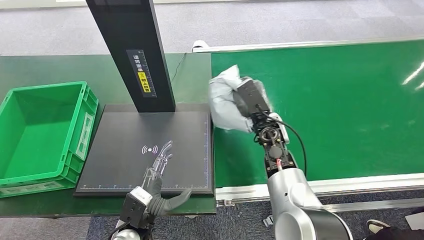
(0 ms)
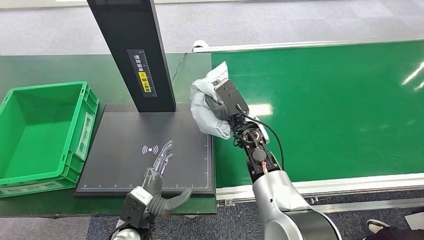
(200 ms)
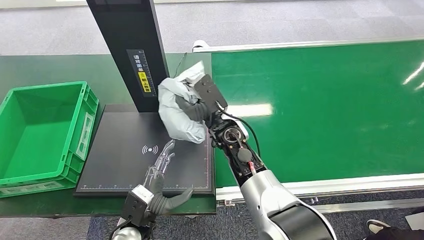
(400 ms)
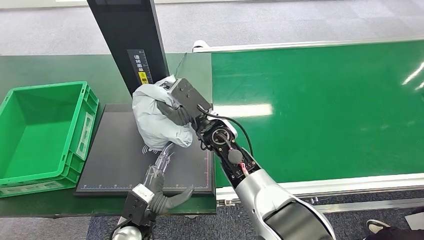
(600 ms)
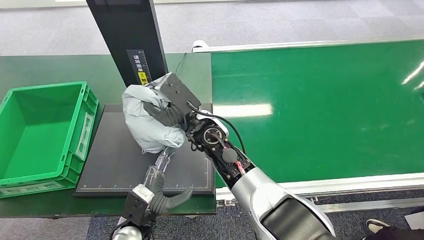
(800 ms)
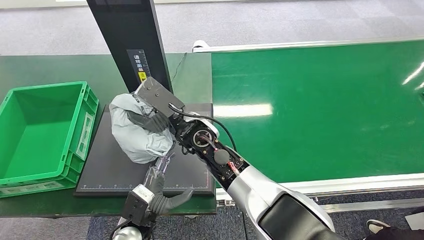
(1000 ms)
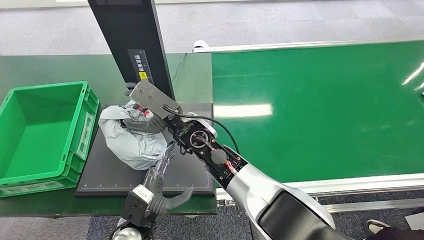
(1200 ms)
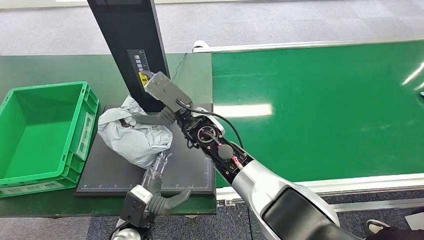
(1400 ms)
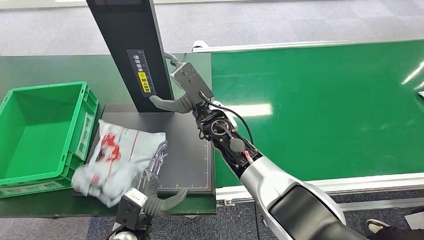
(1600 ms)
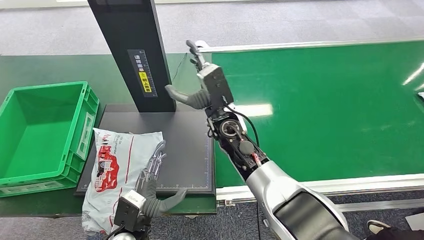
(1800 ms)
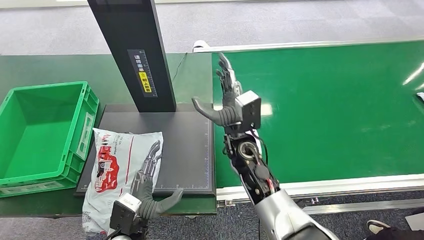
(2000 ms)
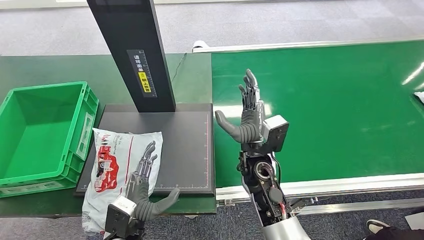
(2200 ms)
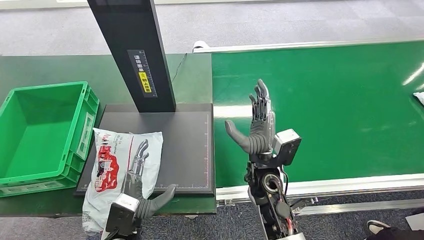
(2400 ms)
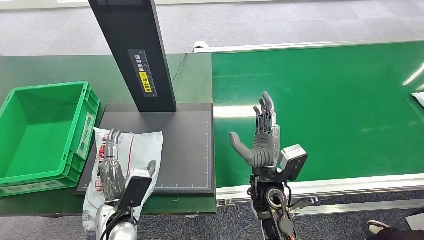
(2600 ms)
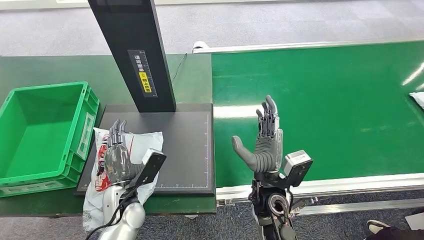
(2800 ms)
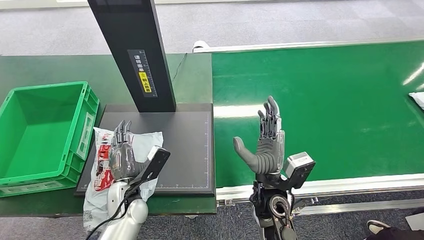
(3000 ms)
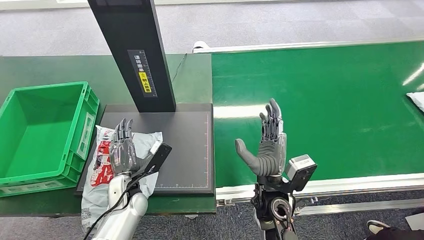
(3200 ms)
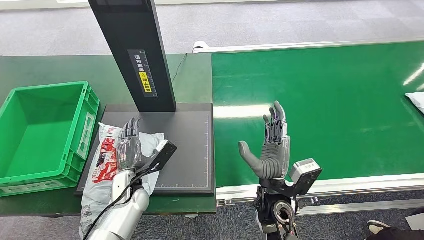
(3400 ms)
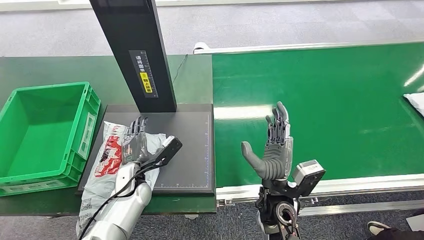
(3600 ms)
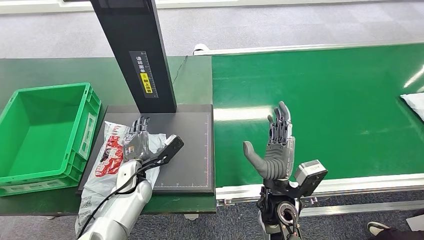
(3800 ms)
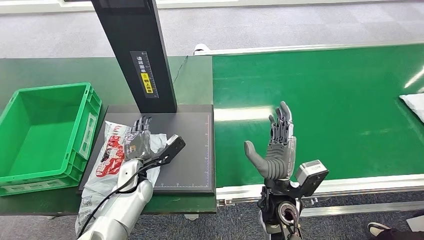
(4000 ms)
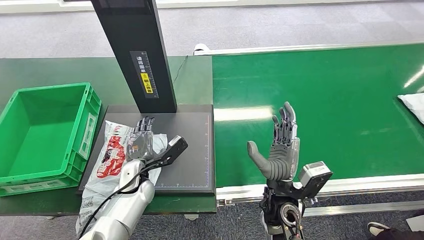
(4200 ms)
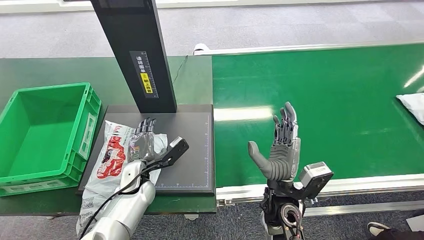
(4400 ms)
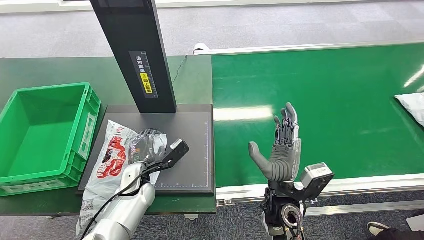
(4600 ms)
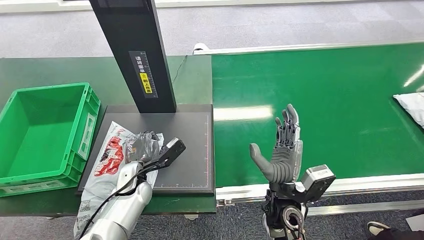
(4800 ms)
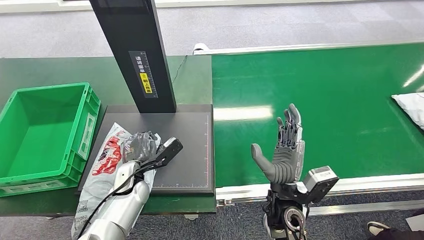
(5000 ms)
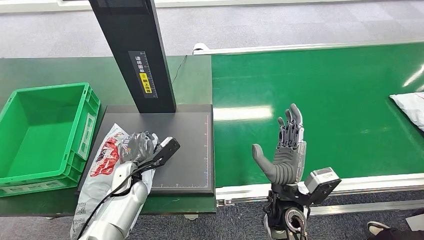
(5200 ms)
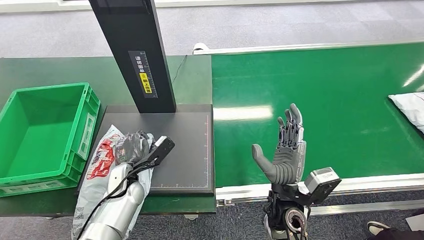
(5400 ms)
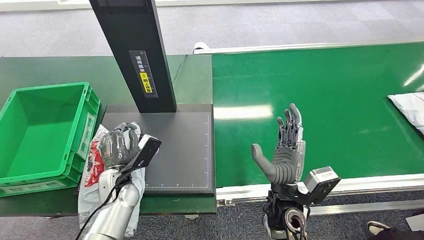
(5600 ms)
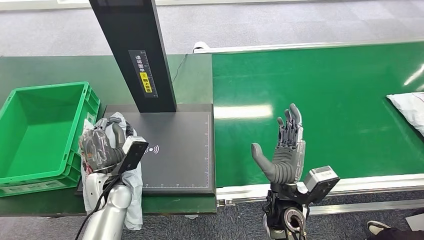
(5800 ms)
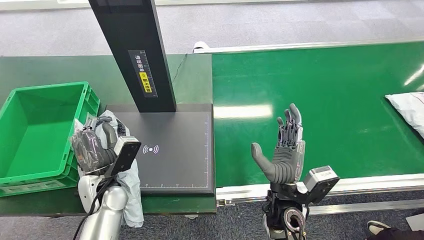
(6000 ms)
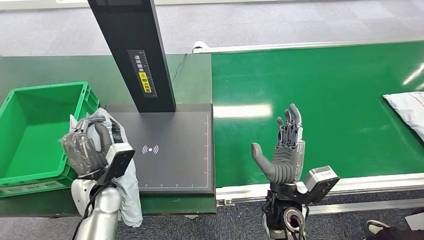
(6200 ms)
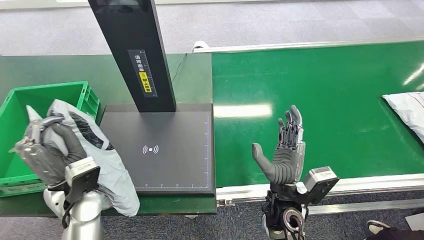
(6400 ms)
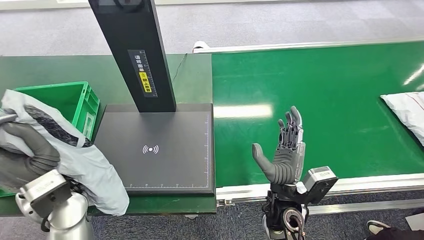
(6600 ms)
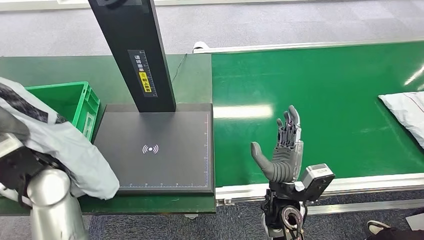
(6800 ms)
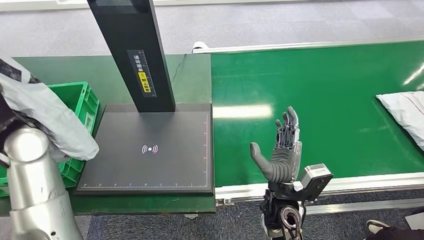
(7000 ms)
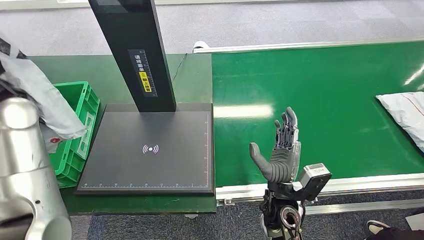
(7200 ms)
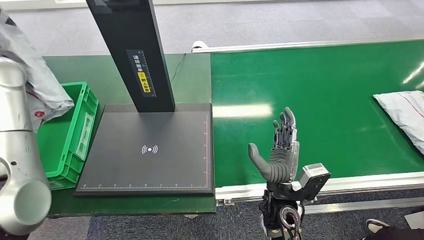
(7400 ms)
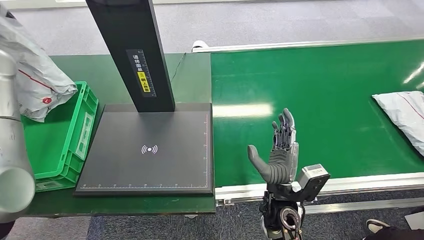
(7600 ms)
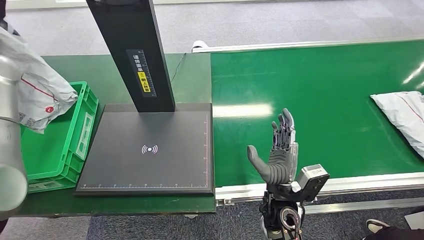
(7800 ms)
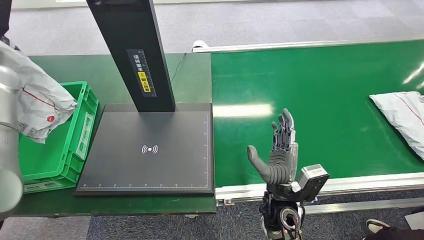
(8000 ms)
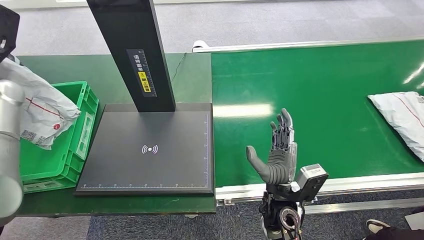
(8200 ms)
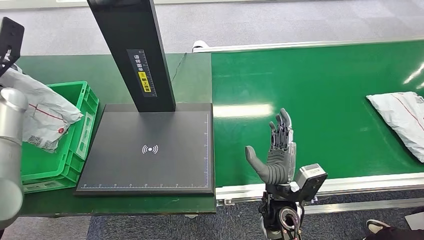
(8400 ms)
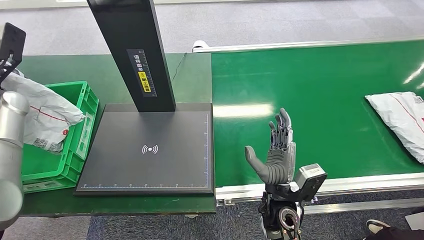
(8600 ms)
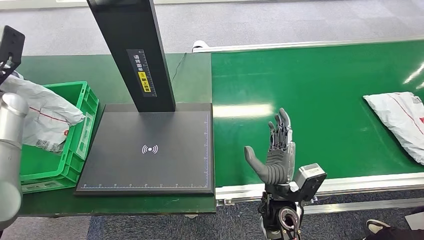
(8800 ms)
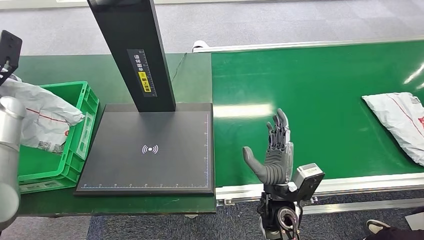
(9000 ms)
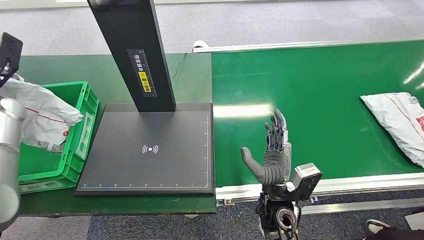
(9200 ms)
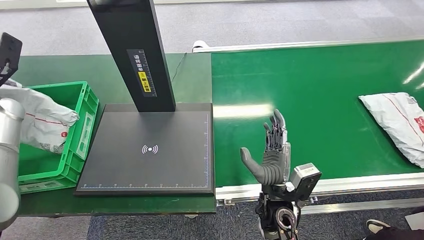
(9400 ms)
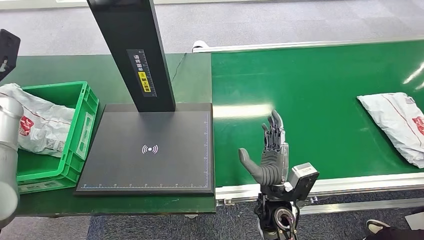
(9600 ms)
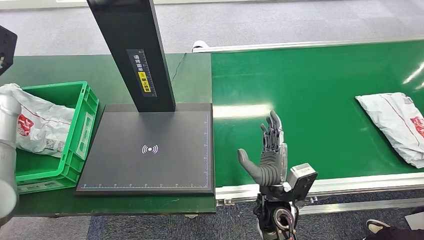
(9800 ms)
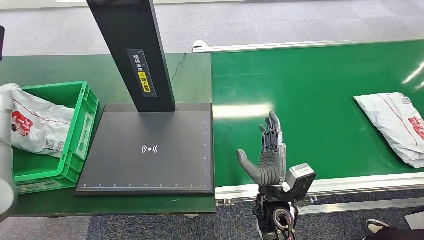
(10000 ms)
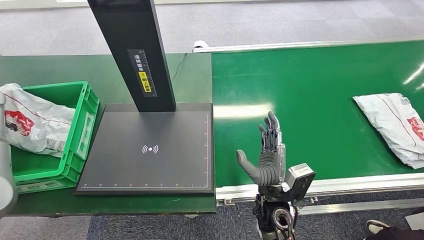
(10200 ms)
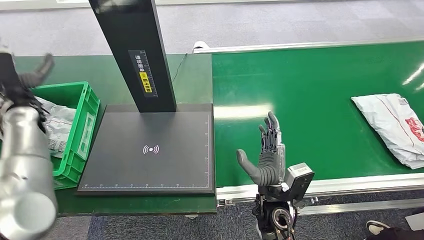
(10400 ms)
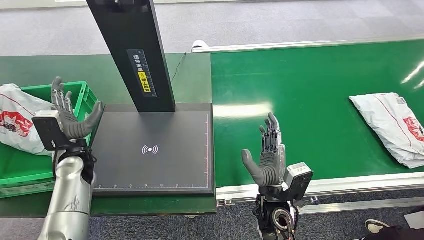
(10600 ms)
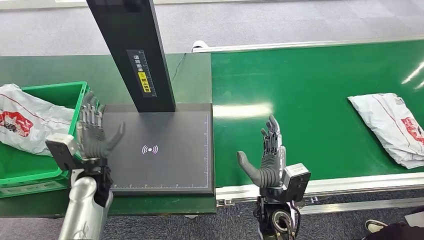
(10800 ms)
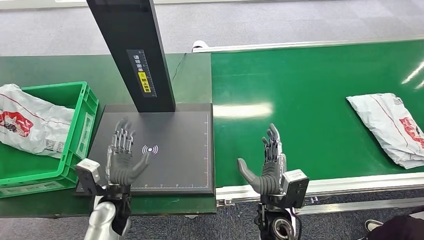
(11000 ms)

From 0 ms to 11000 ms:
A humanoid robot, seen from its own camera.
Step, from 0 ms to 2600 ms: Place the package onto the inbound machine.
Step, from 2800 ms to 6800 ms: Pick up the package from the inbound machine.
Step, from 7000 ms to 11000 ms: Place the package into the parcel locker.
From 0 ms to 1600 ms: The right hand is displaced to the left and upward by approximately 10 cm.
From 4800 ms to 6200 ms: The left hand goes some 5 cm upward.
From 7800 ms to 9400 ms: The left hand is displaced downward and to the left by some 10 cm.
From 9400 ms to 11000 ms: The left hand travels to the right, downward and backward by about 40 cm.

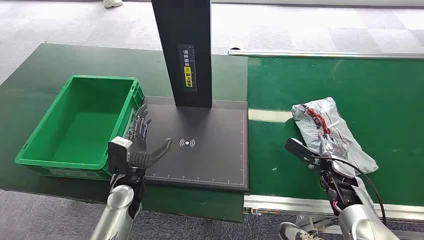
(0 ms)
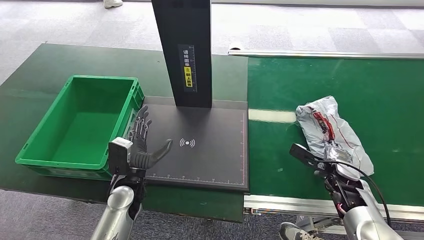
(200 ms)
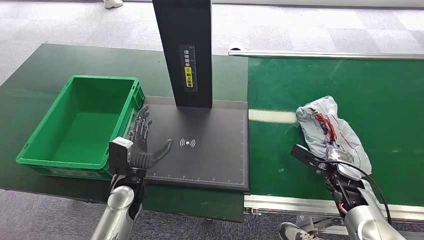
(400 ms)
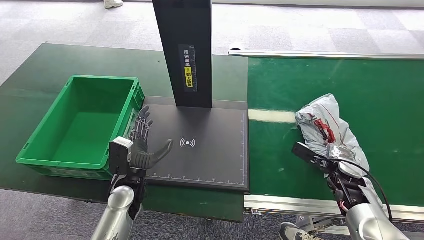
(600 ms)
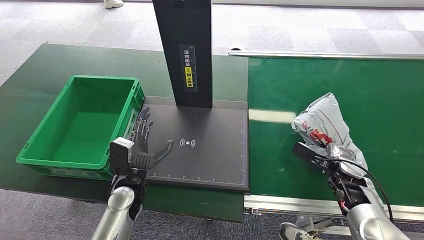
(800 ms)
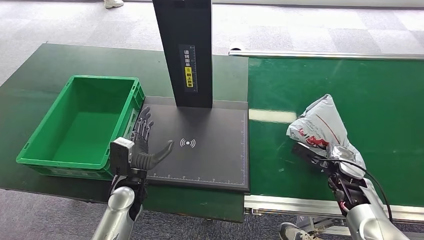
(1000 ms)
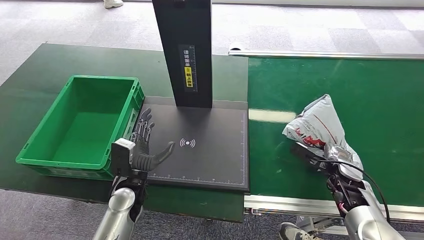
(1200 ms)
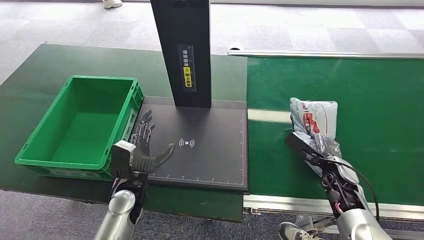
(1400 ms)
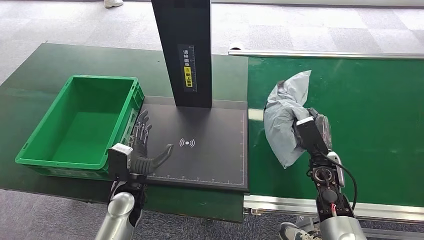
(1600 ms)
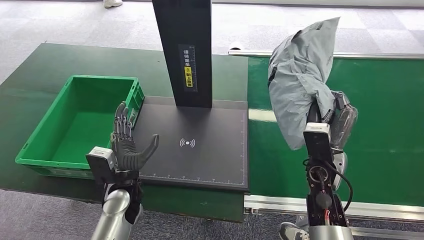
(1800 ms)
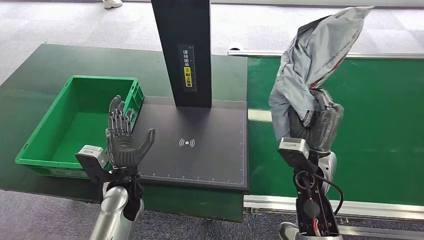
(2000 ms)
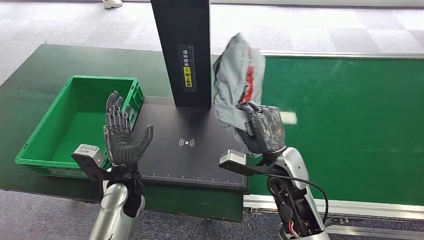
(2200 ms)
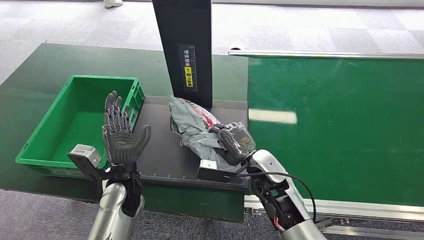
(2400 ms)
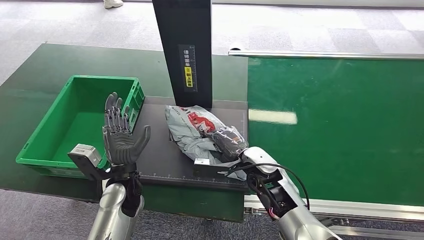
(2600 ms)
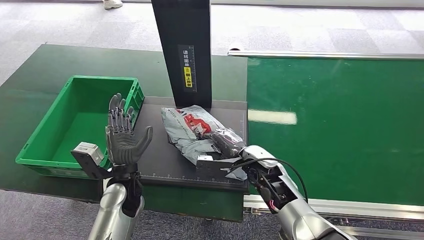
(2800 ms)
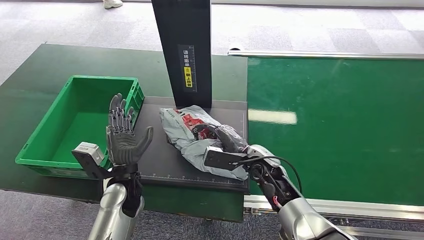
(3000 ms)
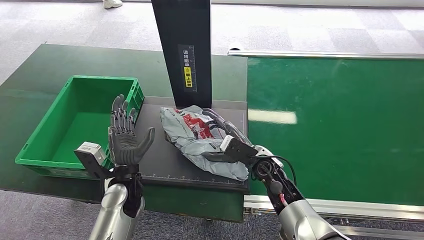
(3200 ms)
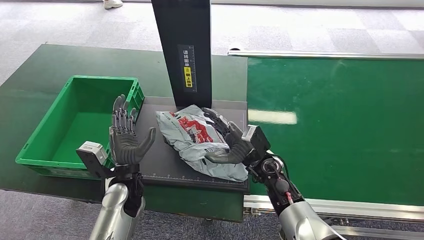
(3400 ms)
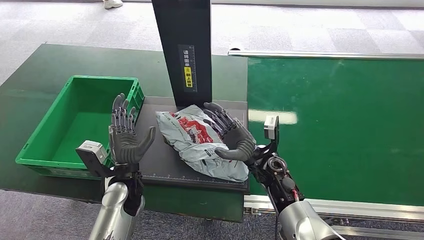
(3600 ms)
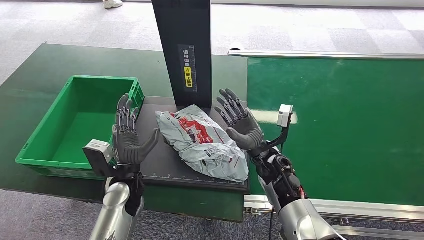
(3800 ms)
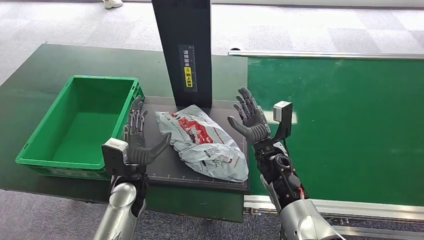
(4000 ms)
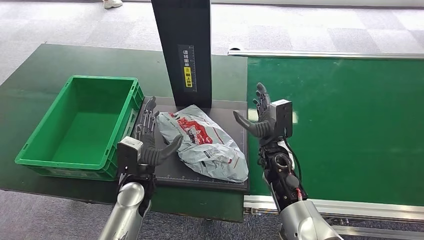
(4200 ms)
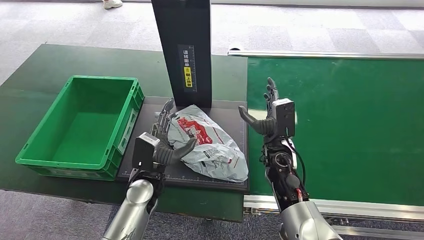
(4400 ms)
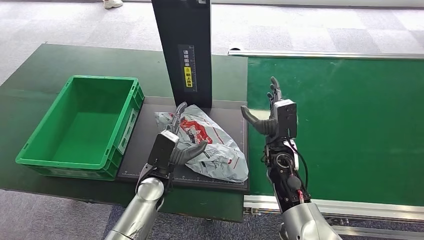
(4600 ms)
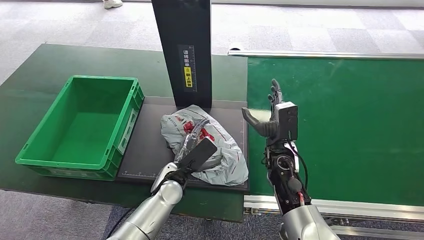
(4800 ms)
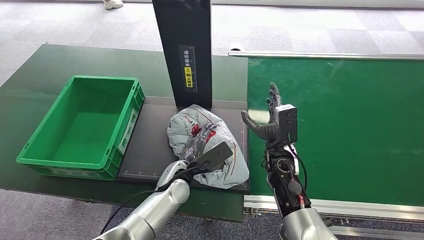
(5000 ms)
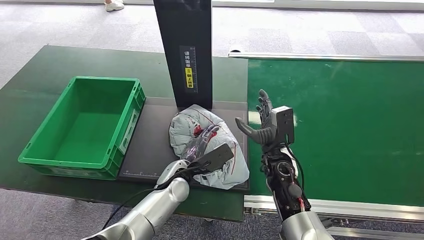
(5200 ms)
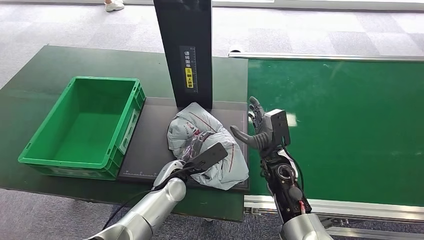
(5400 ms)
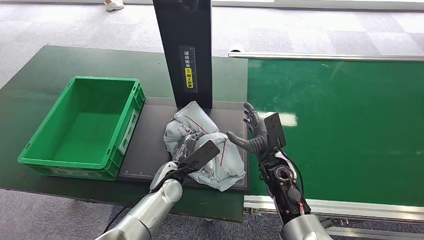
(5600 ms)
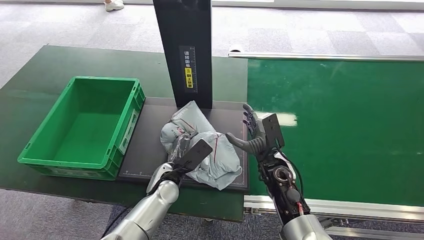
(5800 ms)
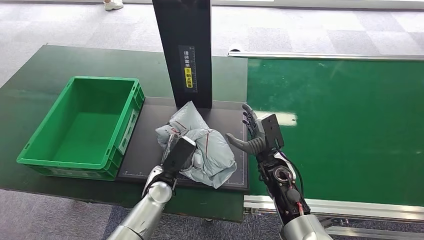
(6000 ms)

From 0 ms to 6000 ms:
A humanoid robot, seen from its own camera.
Step, from 0 ms to 1800 ms: Pick up the package from the conveyor belt.
Step, from 2000 ms to 4400 ms: Place the package onto the inbound machine.
From 1600 ms to 3000 ms: The right hand shifts roughly 15 cm to the left.
